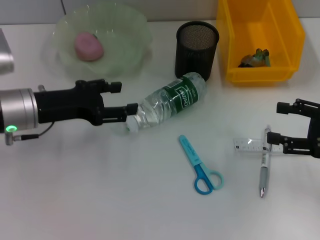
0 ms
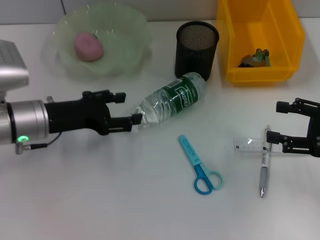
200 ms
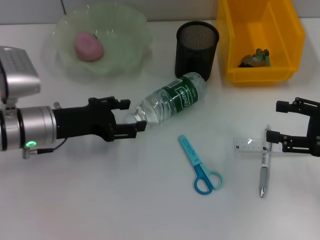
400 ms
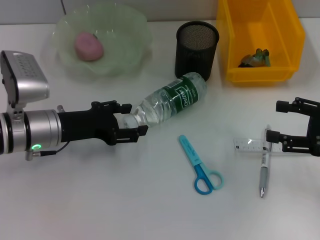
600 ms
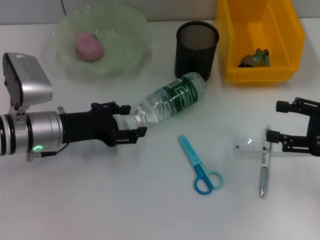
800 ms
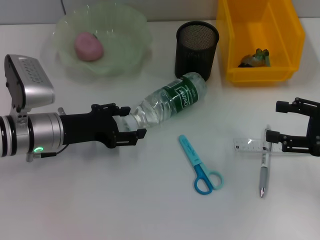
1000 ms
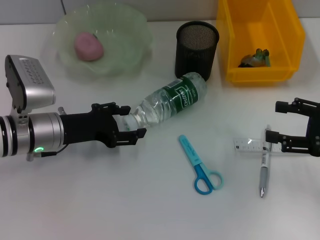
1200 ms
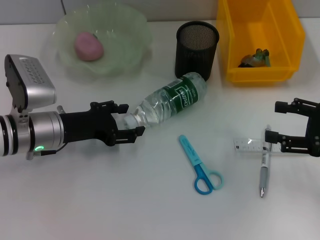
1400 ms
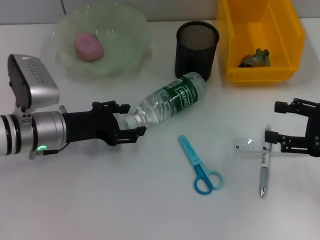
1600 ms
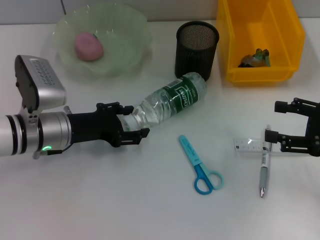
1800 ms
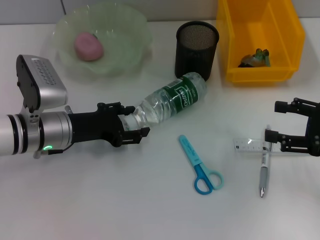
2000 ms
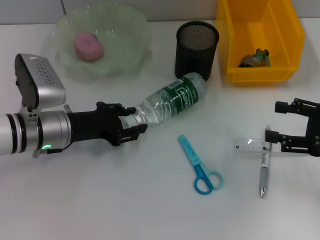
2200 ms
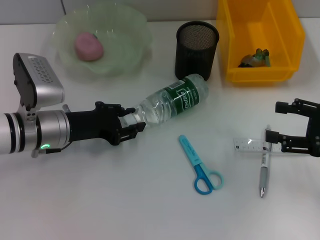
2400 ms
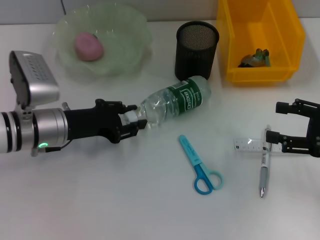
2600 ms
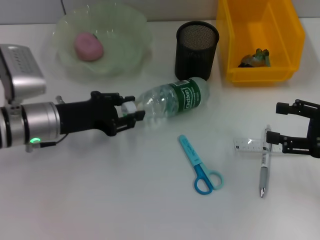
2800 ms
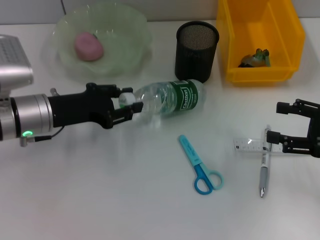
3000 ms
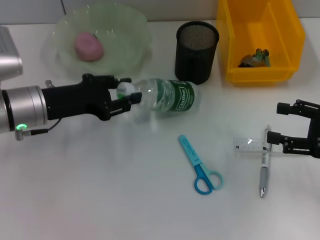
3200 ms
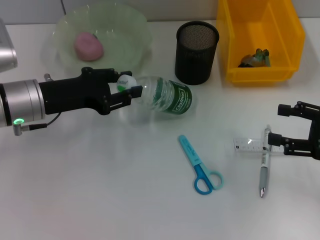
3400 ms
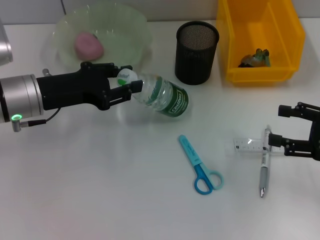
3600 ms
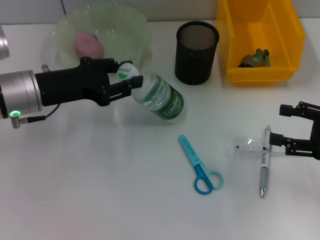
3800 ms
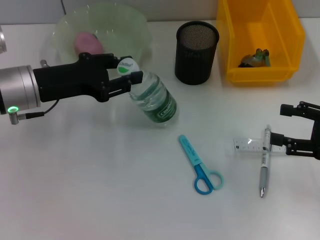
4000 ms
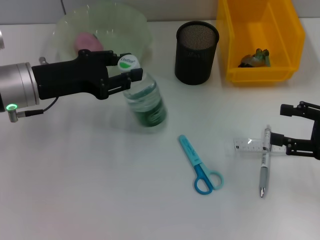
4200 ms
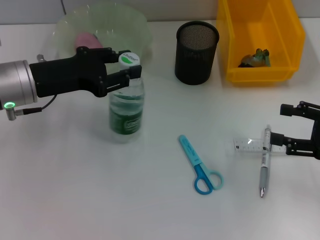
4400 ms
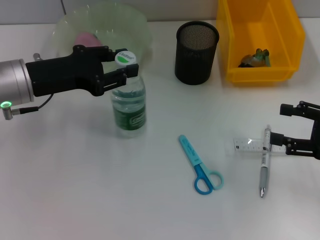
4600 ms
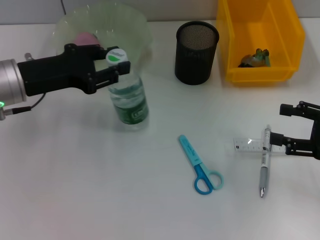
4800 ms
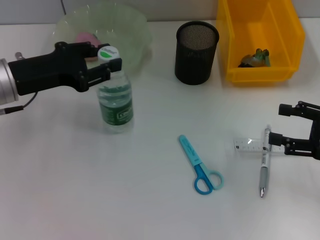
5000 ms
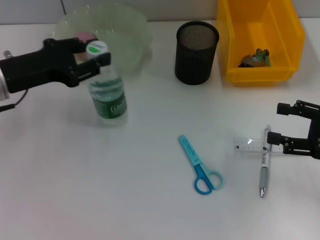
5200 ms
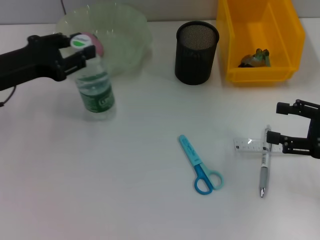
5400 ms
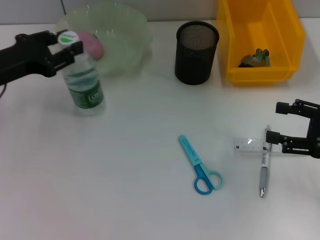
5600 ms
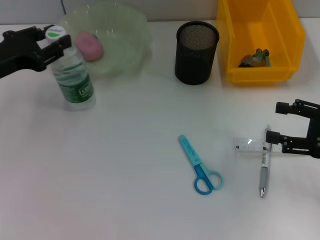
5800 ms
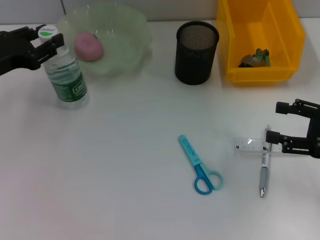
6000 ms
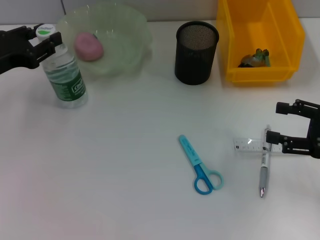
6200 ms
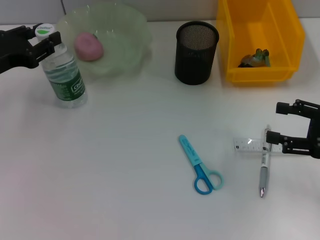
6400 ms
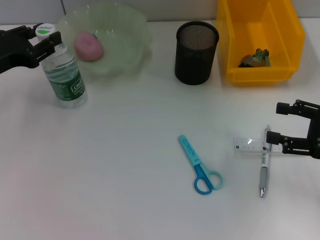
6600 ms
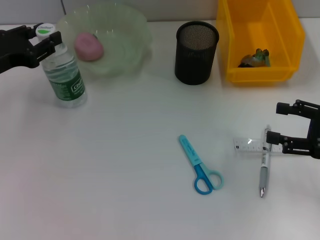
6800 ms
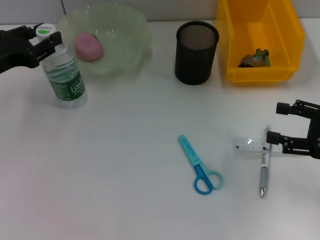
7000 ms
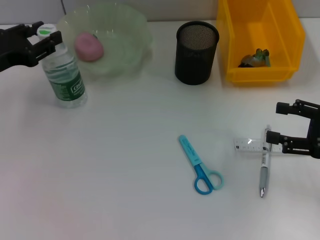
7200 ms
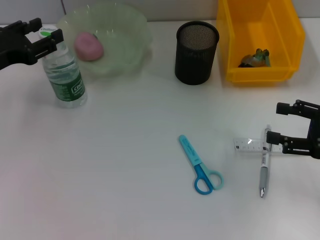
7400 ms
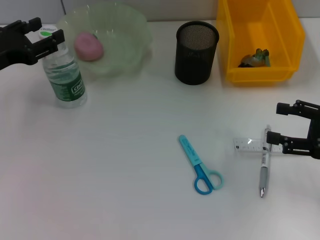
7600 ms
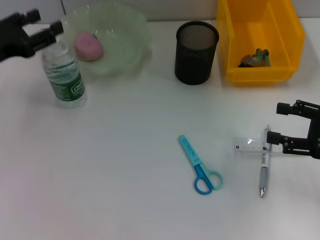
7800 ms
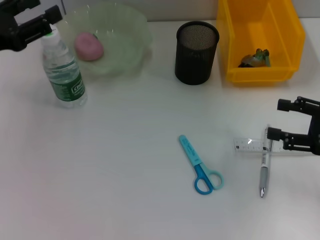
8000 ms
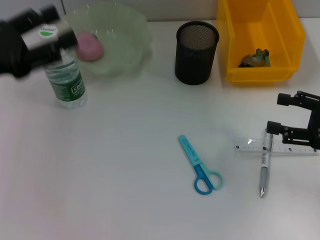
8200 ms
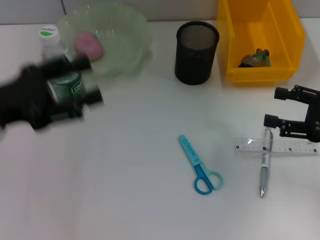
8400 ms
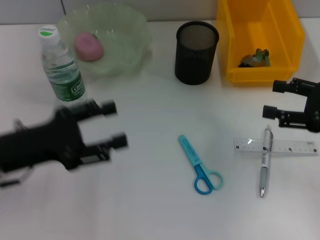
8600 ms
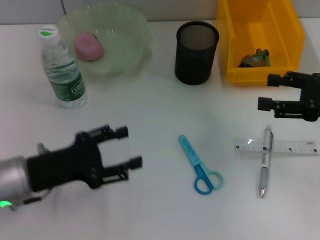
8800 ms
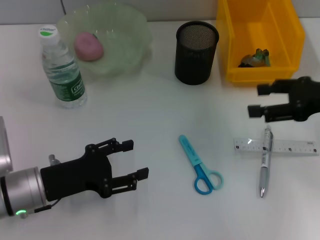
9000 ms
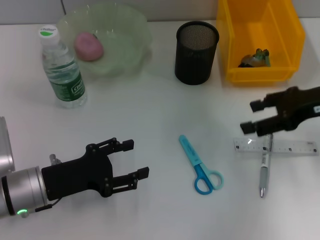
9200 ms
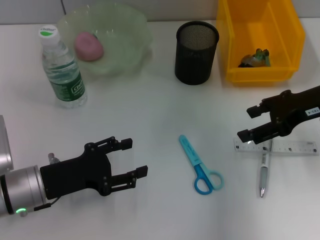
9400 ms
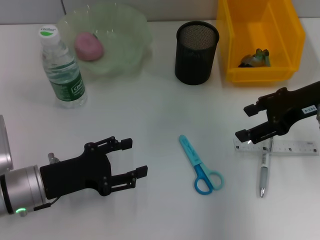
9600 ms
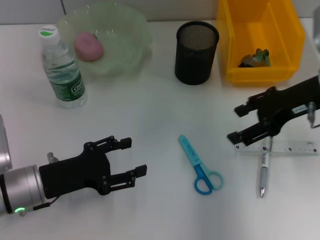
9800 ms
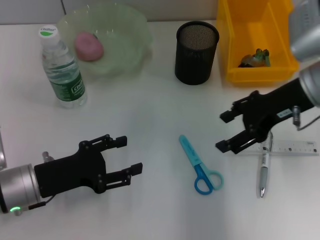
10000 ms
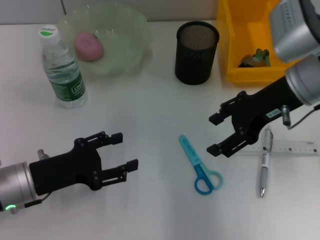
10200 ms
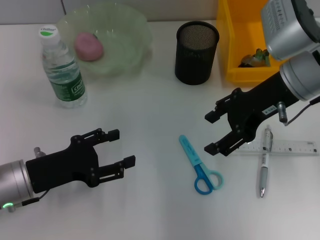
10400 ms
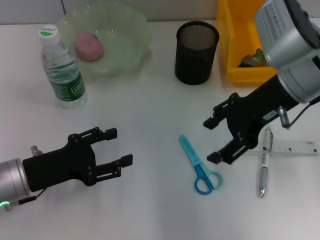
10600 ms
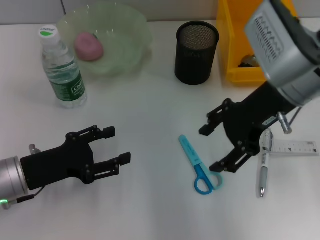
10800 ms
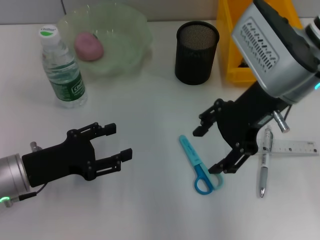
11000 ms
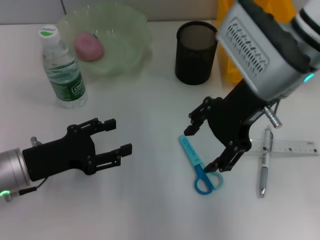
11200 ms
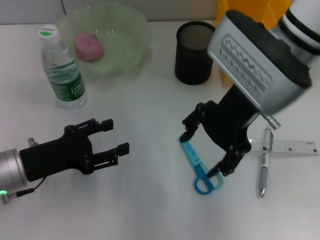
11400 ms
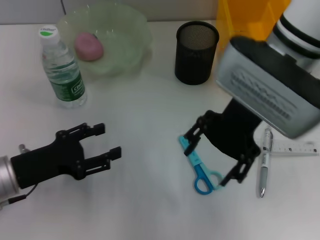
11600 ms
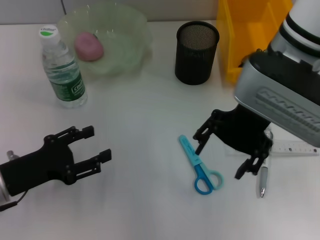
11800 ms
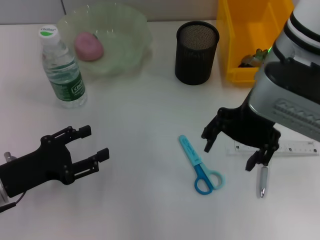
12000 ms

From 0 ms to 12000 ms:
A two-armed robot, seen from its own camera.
Step, from 0 ms to 2400 ms: Grab the water bottle with the left hand.
Step, from 2600 ms to 7800 ms: Place the water bottle on the table with the left hand.
From 0 ms to 1600 ms: The left gripper is displaced downward by about 5 cm.
From 1600 ms to 3000 ms: The left gripper closes its fingers.
From 3000 ms to 4400 ms: The left gripper ends up approximately 5 cm from where it was.
From 4400 ms to 6000 ms: The left gripper is displaced to the left by about 10 cm.
From 6000 ms to 7600 ms: The left gripper opens.
From 7600 ms to 9000 ms: The right gripper is displaced forward and upward by roughly 10 cm. The left gripper travels downward, backward and to the right by some 15 cm.
From 9000 ms to 10400 ms: The right gripper shifts approximately 10 cm to the left.
From 10400 ms to 12000 ms: The right gripper shifts approximately 5 cm to the left.

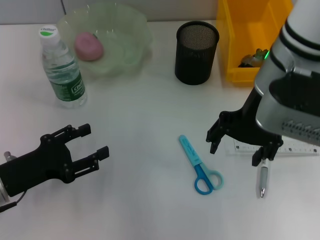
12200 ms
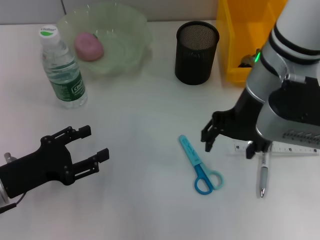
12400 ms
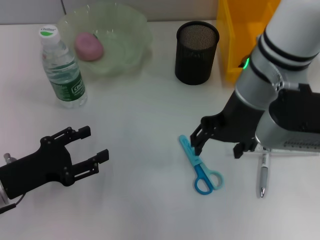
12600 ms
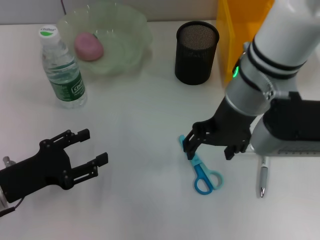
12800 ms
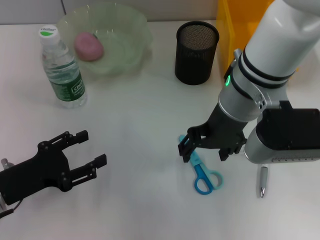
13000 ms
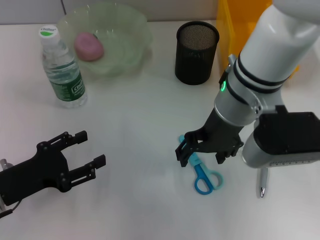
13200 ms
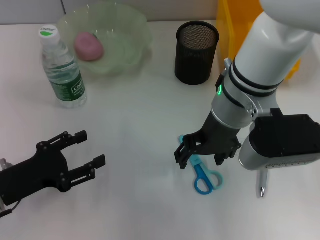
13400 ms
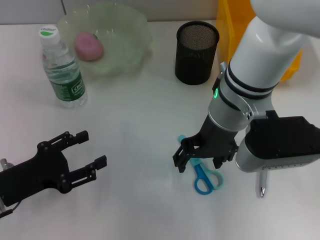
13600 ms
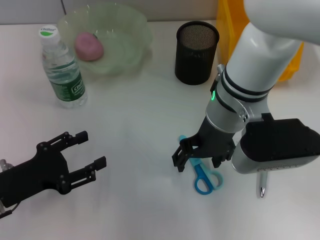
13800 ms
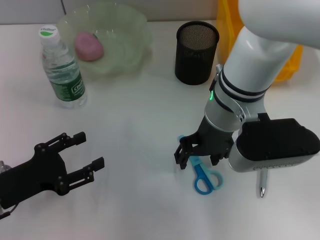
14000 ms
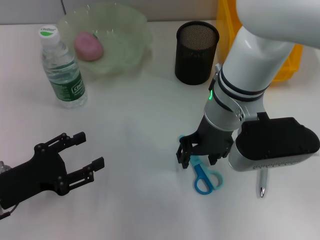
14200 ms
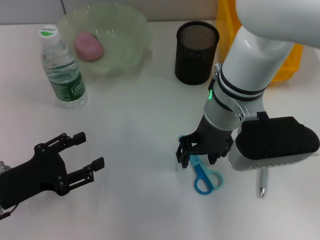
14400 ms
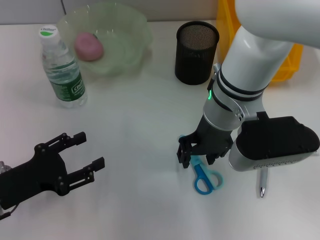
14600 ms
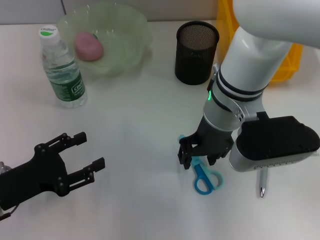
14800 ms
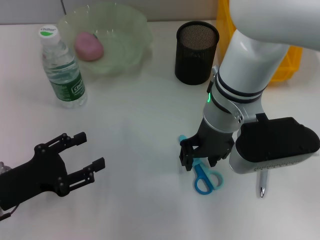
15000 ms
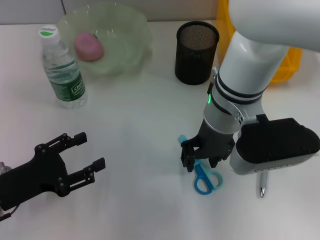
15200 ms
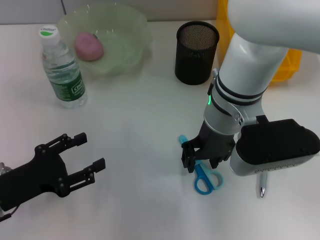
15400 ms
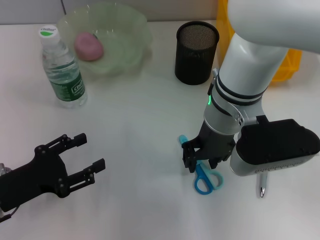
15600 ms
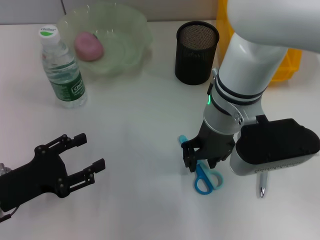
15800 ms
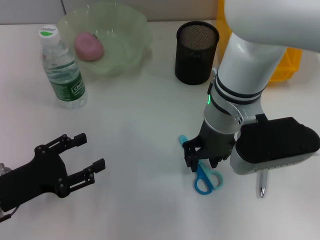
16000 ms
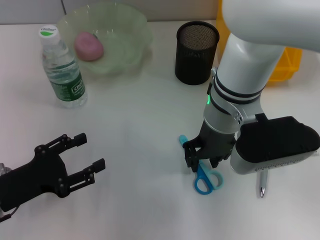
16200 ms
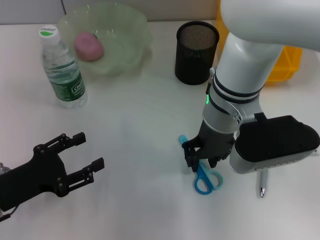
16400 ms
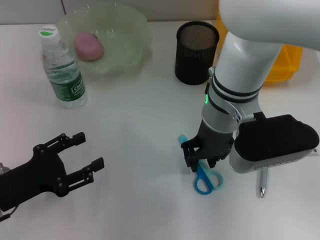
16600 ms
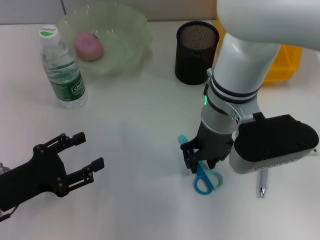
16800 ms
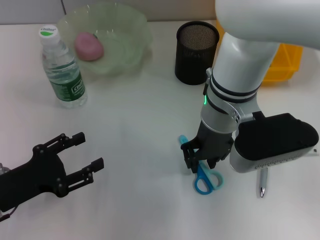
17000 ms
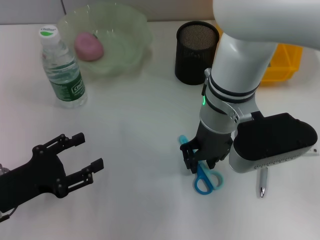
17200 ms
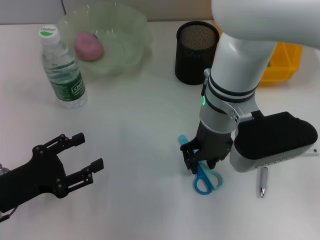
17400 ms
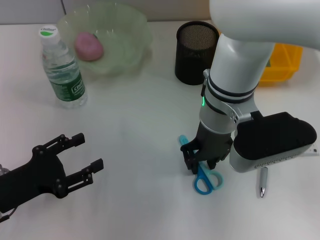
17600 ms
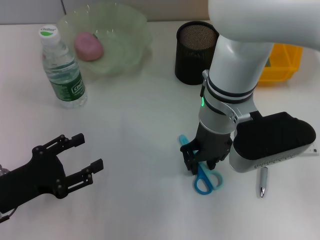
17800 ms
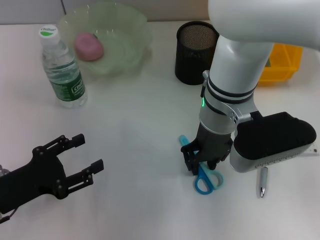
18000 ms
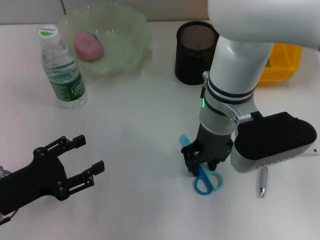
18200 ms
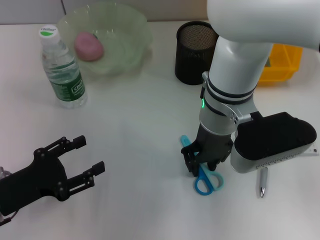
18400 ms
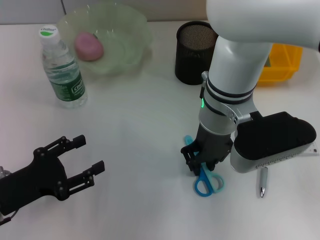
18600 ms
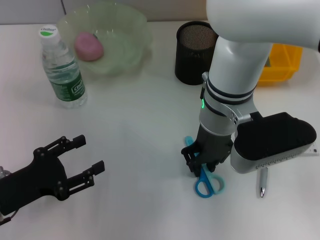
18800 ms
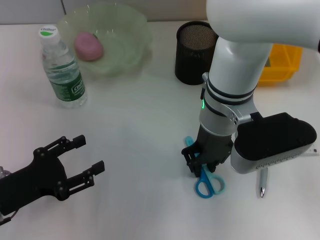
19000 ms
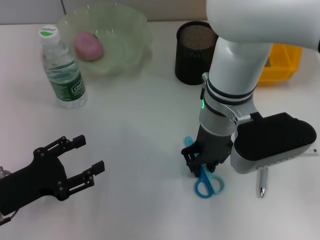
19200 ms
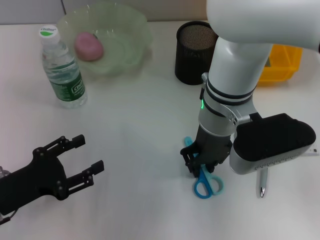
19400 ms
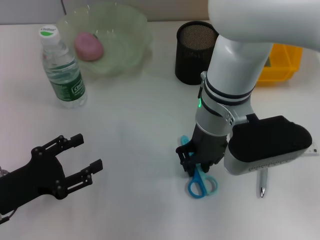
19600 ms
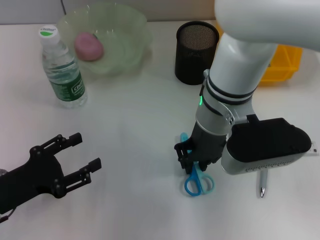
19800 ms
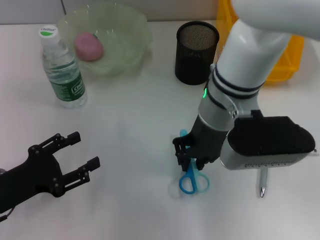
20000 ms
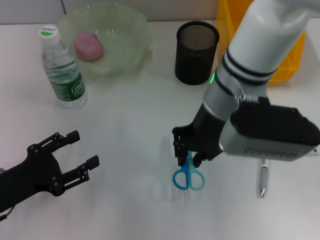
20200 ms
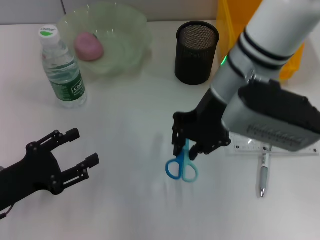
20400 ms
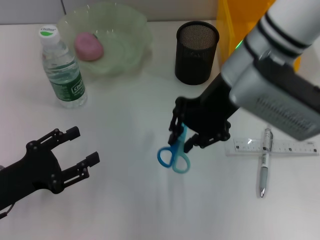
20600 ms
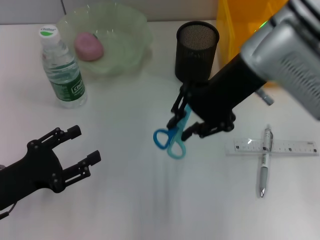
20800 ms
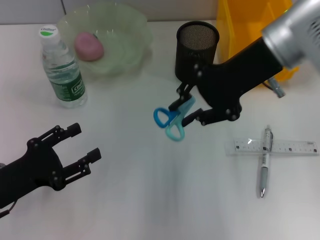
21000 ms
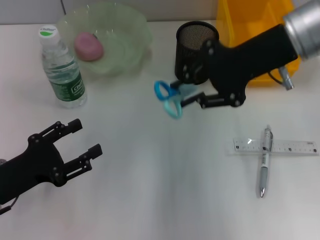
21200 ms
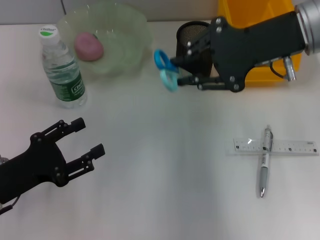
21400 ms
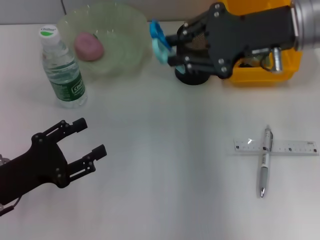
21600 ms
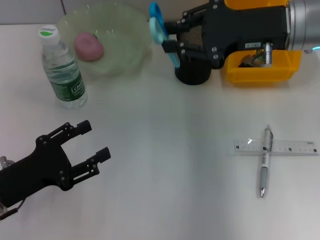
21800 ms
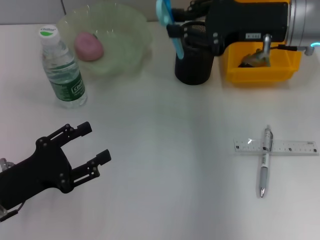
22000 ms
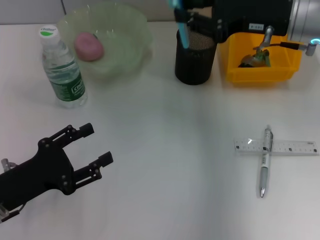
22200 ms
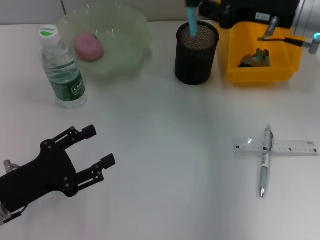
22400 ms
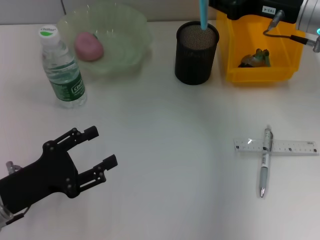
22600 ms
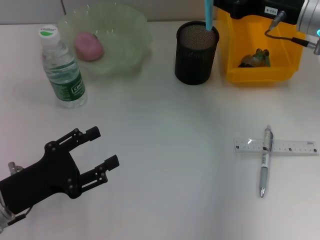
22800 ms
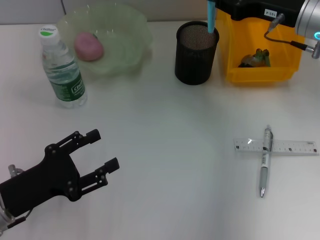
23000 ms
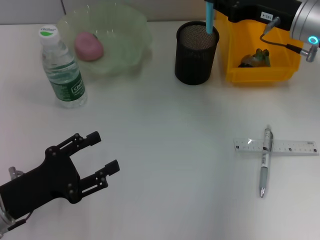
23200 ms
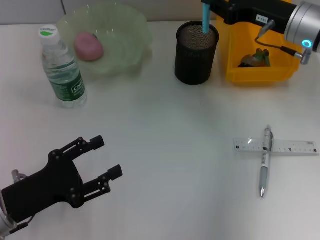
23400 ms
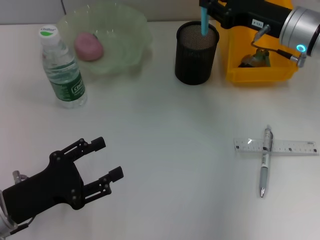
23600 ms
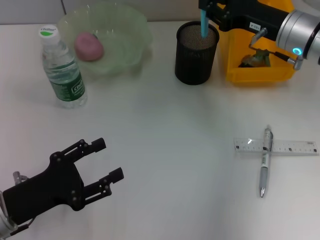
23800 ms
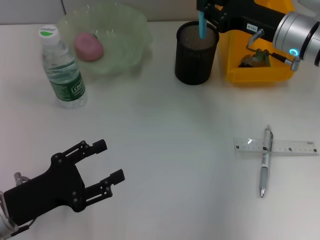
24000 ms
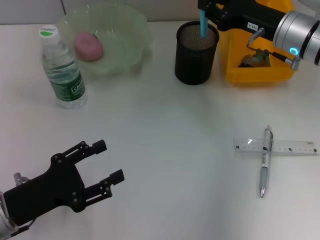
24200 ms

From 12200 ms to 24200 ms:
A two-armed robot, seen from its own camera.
Step, from 12200 ms to 19800 ms: Grab the blue scissors with the right hand.
From 12200 ms to 13800 ms: The right gripper travels downward by approximately 5 cm.
From 13800 ms to 15200 ms: The right gripper closes up.
From 15200 ms to 16600 ms: The two grippers keep their place.
From 16600 ms to 18200 ms: Both grippers stay put.
From 18200 ms to 19800 ms: There are only small adjustments of the grippers.
From 19800 ms to 21200 ms: The right gripper goes roughly 15 cm to the right and upward.
From 21200 ms to 22600 ms: The right gripper moves downward, approximately 5 cm.
From 22600 ms to 24200 ms: The right gripper shifts by about 5 cm.
